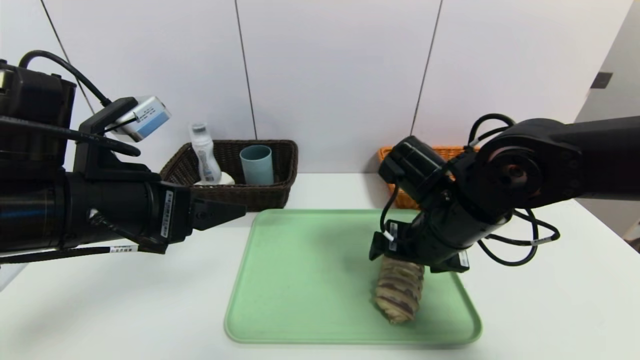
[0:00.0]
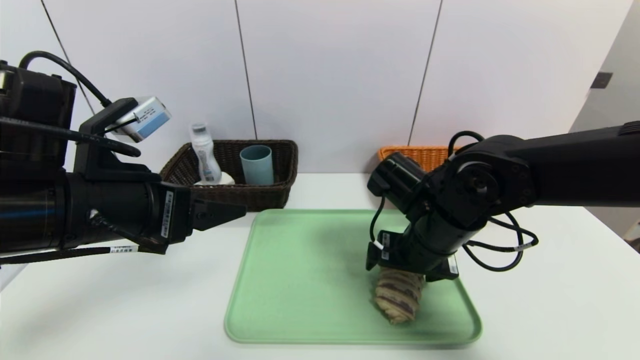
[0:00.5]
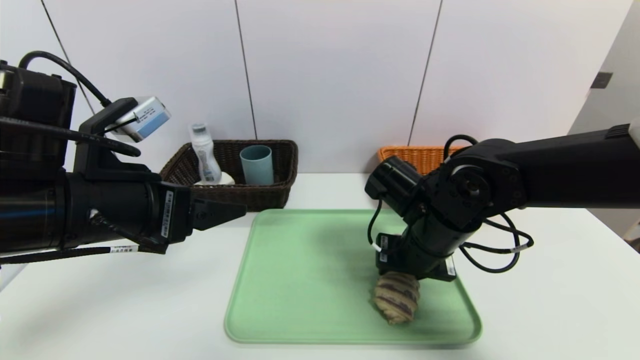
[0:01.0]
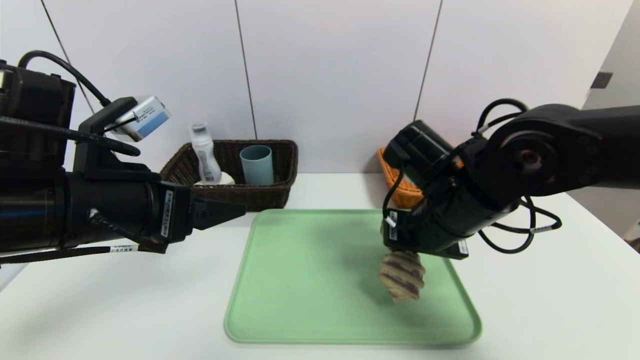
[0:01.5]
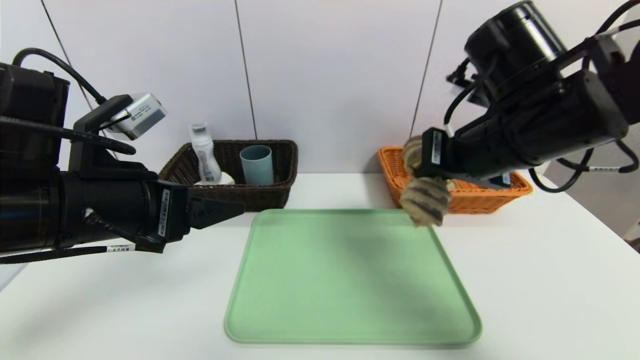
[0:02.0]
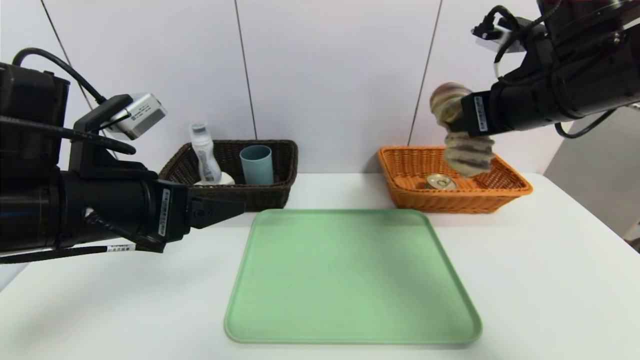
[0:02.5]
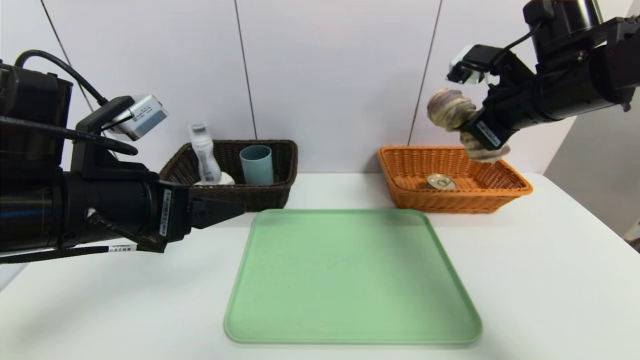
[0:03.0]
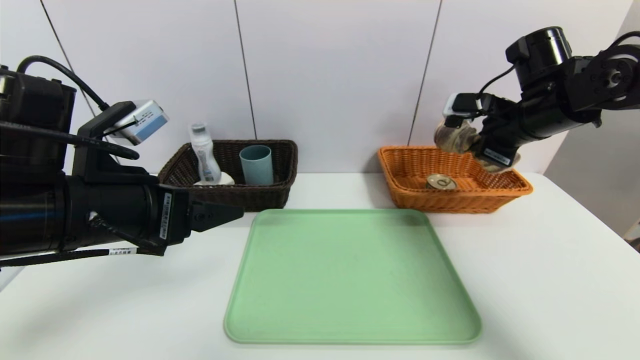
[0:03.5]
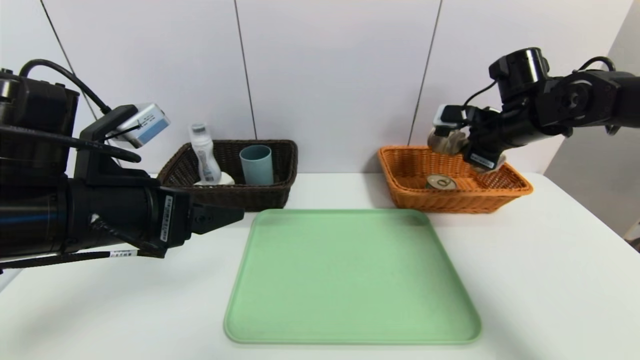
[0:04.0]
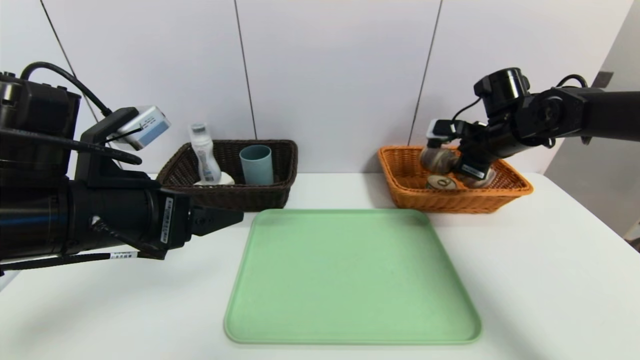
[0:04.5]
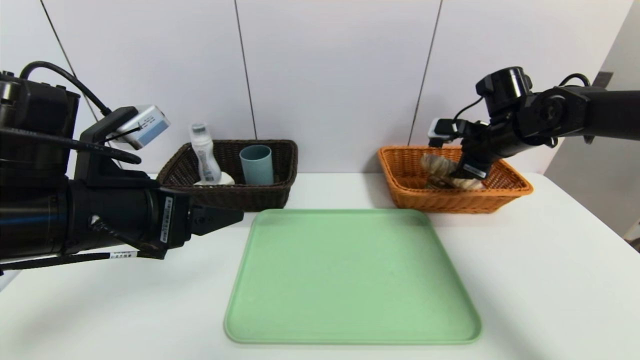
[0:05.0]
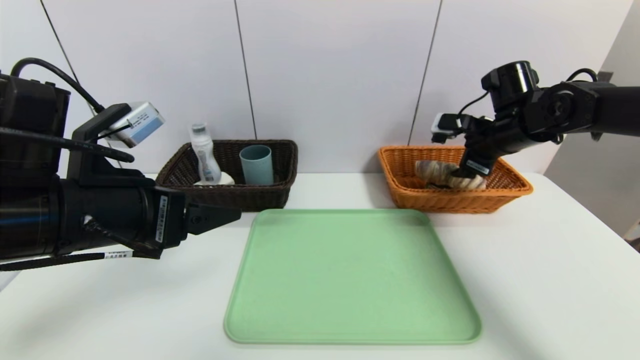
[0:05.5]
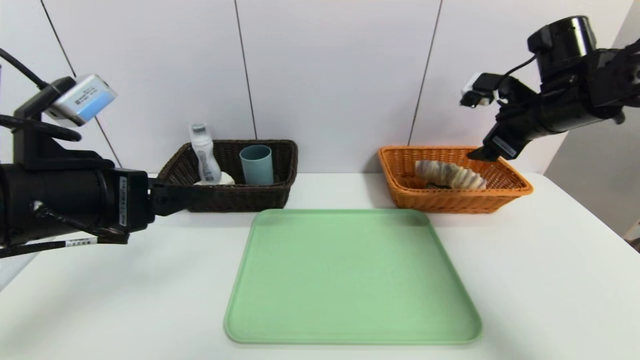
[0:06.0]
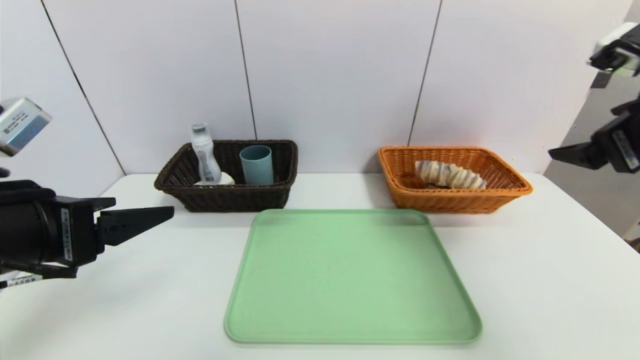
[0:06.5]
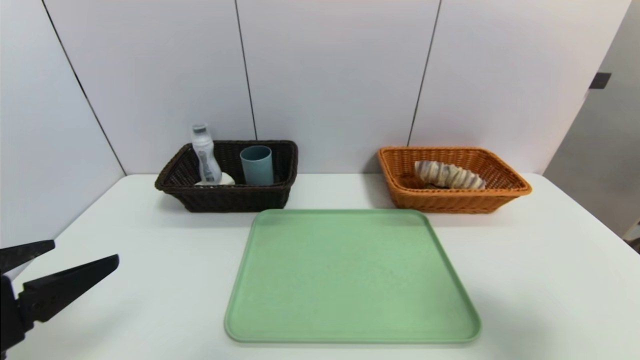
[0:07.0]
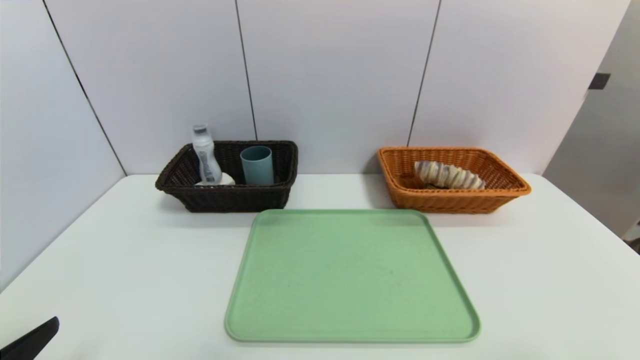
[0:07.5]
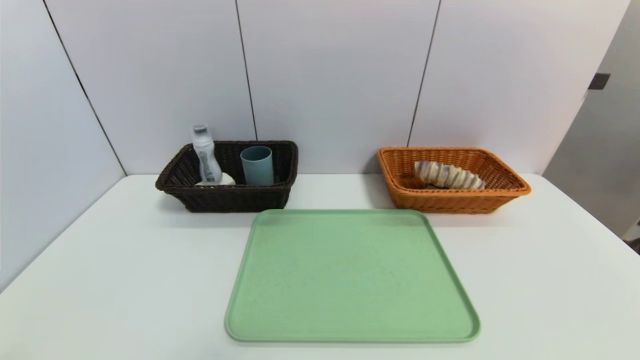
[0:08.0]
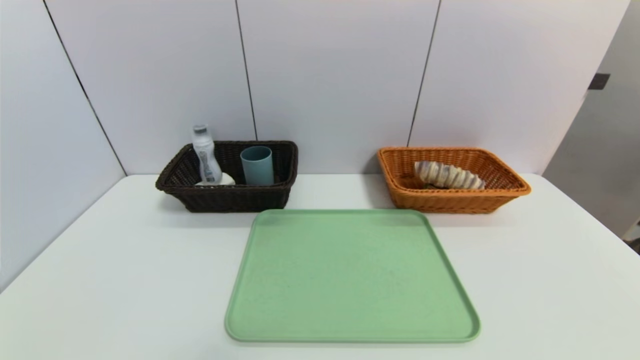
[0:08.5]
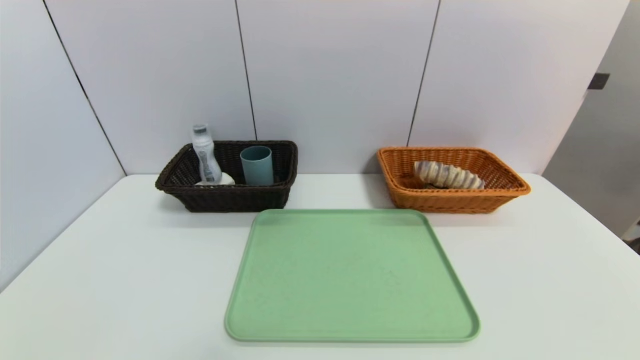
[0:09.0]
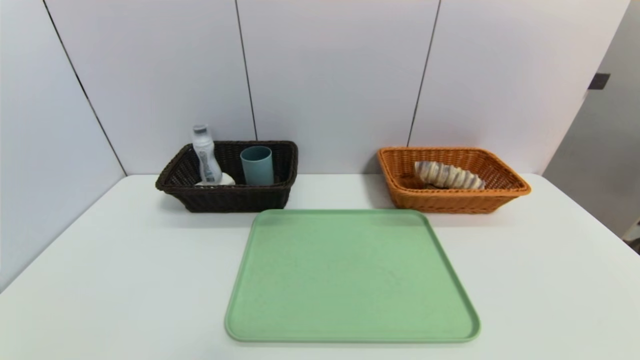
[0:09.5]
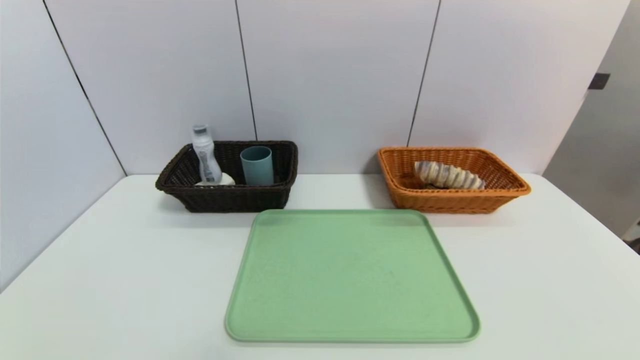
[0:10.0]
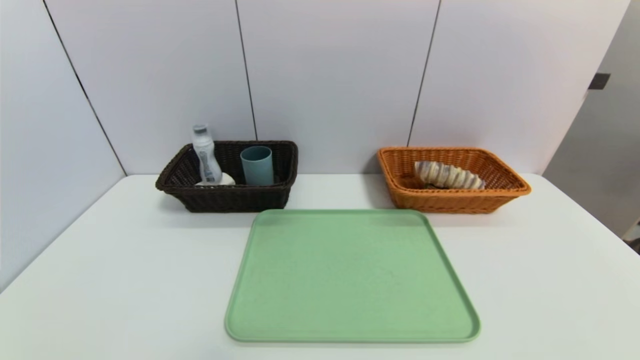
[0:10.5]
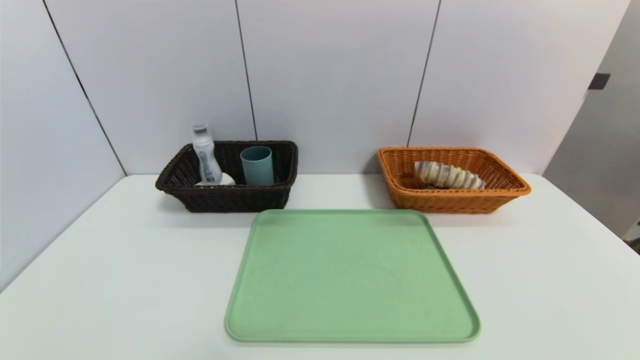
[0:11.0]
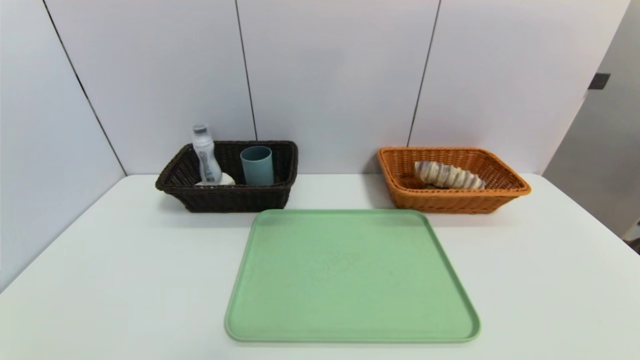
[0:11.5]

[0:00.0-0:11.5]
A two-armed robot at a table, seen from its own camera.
Task of the whole recording: place the food in the right basket with the right gripper, and place the non food items in the left basket with the left gripper.
Step, 0:00.0 to 0:05.5: Grasp the long bread and put it in the right basket.
0:00.0 to 0:02.0: The right gripper travels upward by roughly 10 cm, and closes its fingers.
0:02.0 to 0:04.0: The right gripper goes about 20 cm forward and to the right.
0:04.0 to 0:06.0: The right gripper is displaced backward and upward by some 10 cm, and opens.
0:06.0 to 0:07.5: The left gripper moves backward, downward and to the left, some 20 cm; the right gripper travels backward by approximately 35 cm.

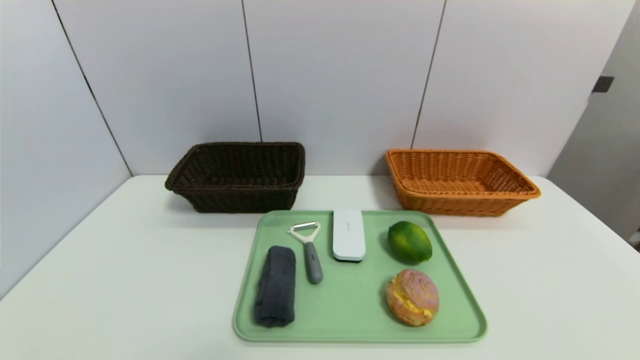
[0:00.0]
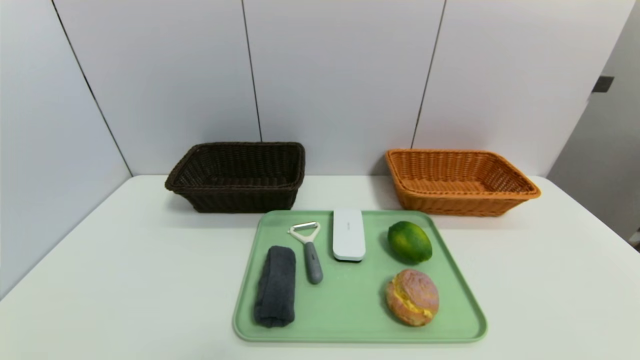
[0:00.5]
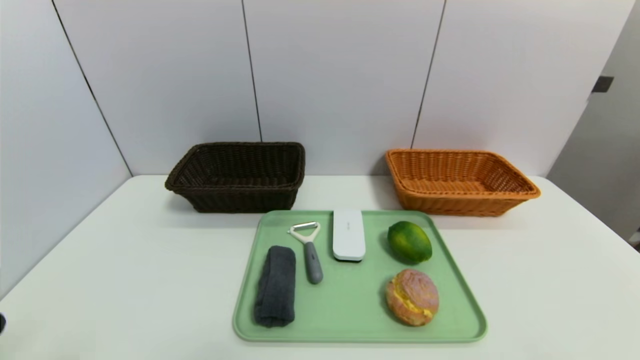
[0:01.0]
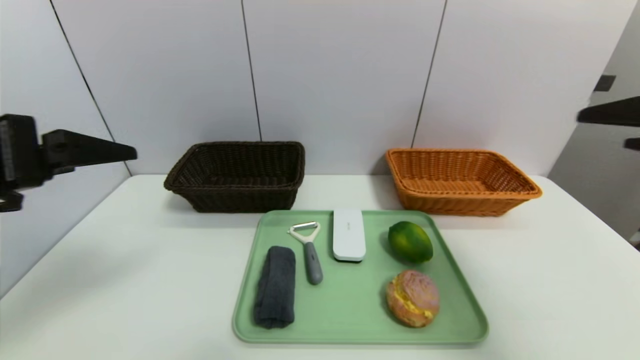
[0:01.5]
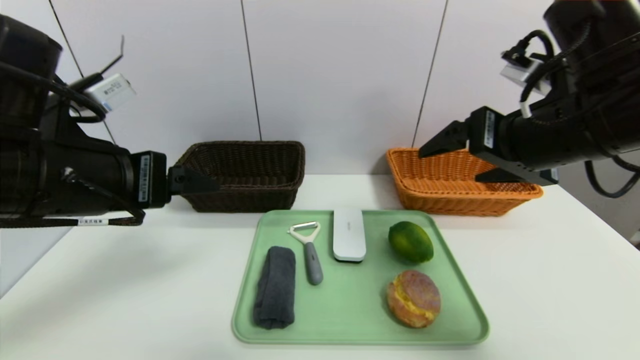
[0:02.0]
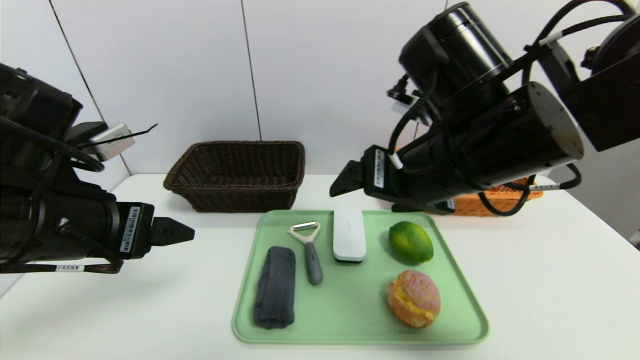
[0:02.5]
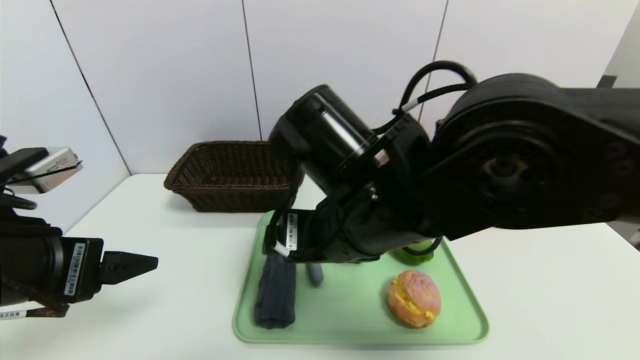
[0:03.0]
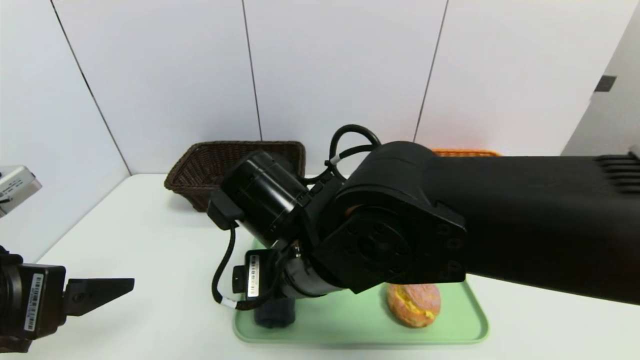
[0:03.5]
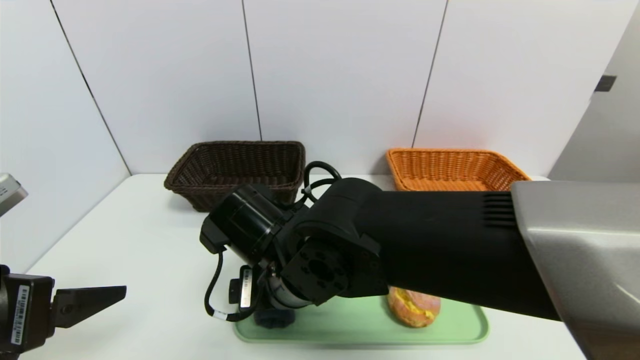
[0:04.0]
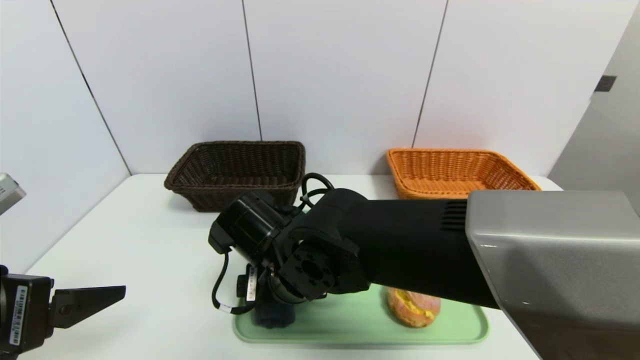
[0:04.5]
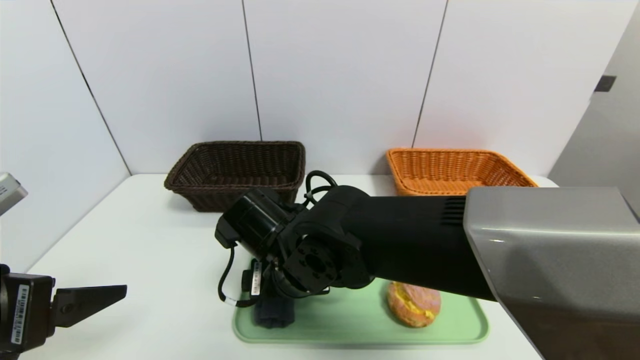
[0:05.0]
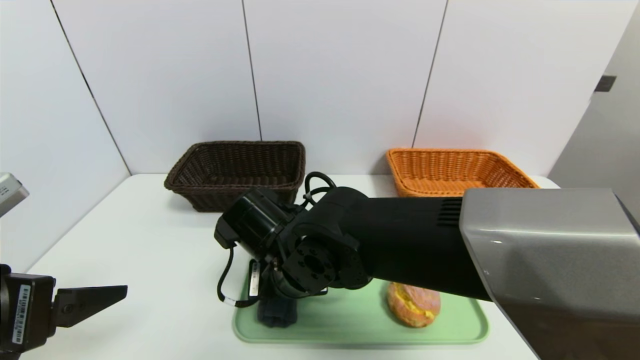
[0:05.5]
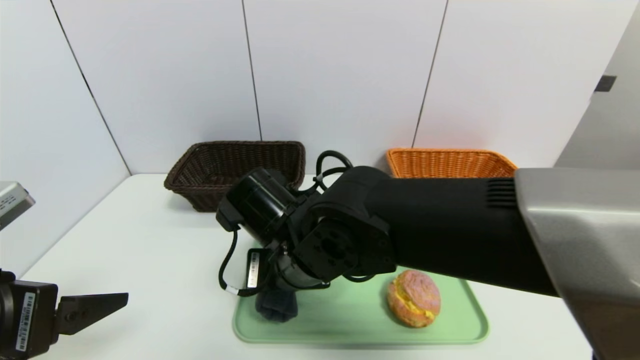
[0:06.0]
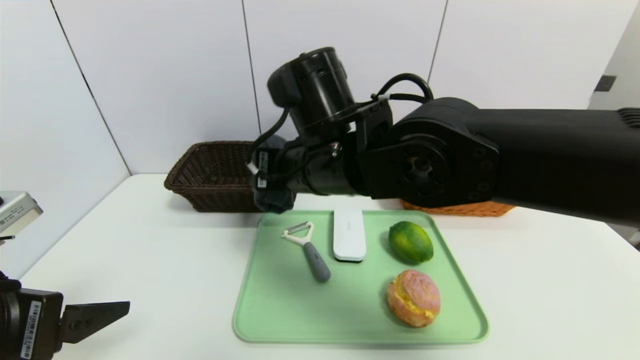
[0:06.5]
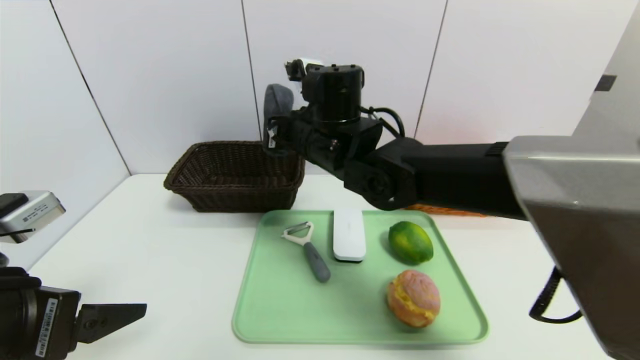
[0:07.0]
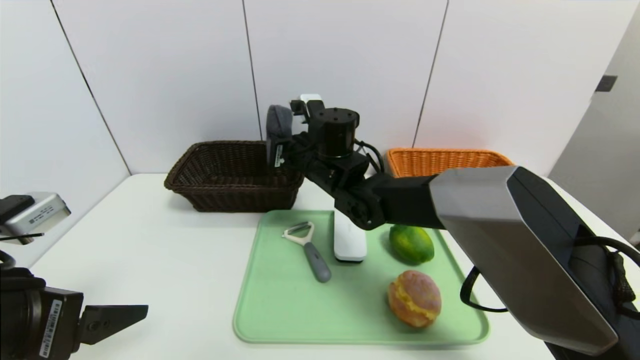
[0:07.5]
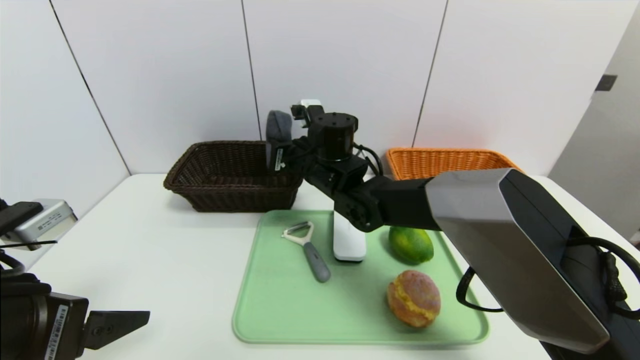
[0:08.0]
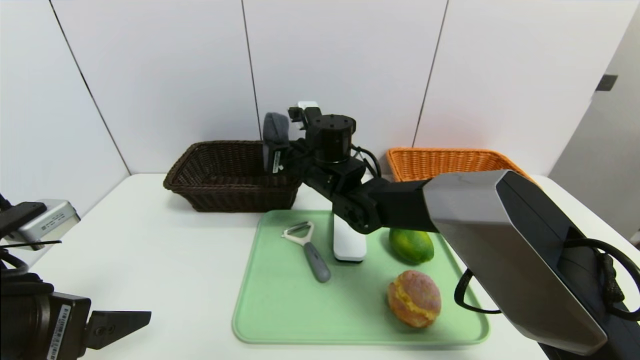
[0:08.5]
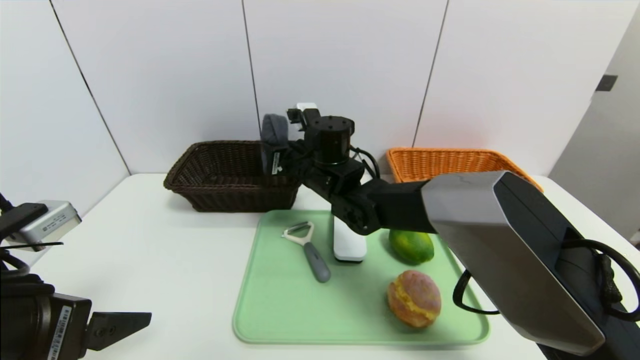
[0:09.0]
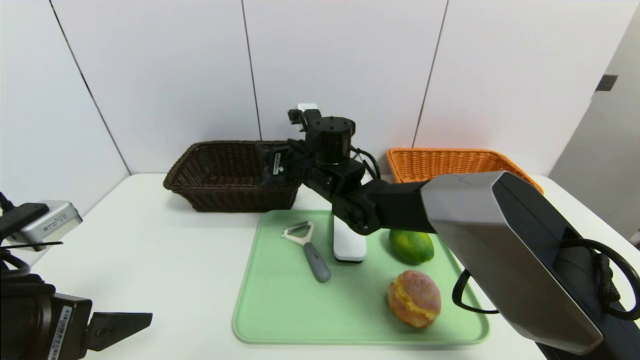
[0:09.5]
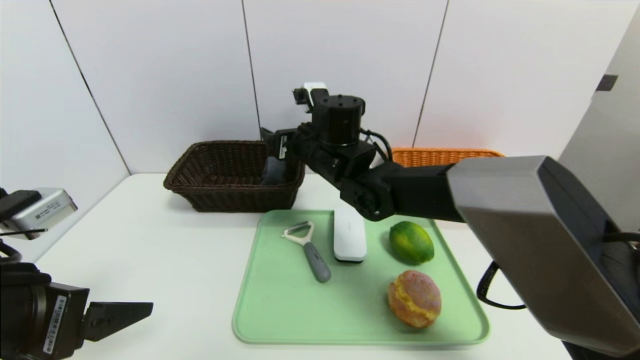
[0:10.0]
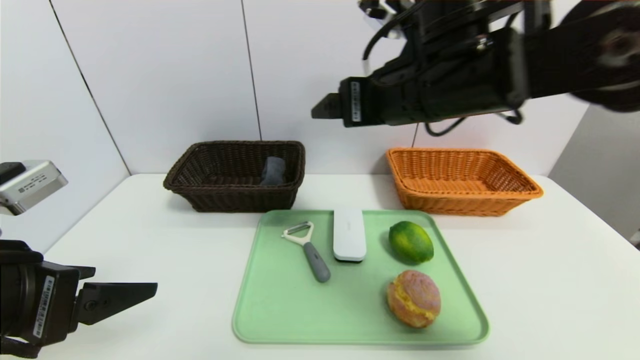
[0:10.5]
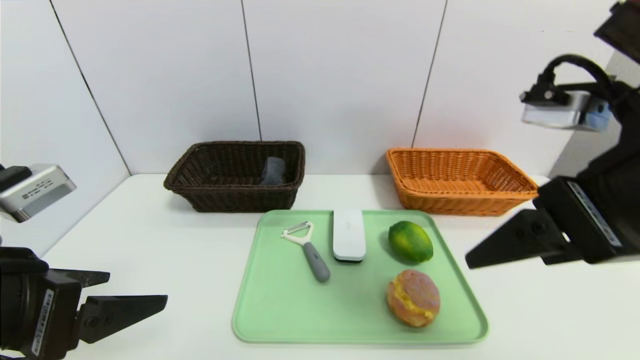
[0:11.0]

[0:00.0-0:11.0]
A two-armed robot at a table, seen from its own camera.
Task of the whole recording: place the food in the right basket with the right gripper, and place the non food items in the left basket with the left gripper.
Step, 0:00.0 to 0:09.5: Grasp the grey towel and put it in the left basket.
0:00.0 to 0:02.0: The left gripper shifts roughly 30 cm upward, forward and to the right. The right gripper heads forward, upward and to the left, covering approximately 35 cm.
0:02.0 to 0:03.5: The right gripper heads to the left and downward, covering some 25 cm. The left gripper is displaced backward by about 10 cm.
0:03.5 to 0:05.5: The right gripper heads downward, covering approximately 5 cm, and closes.
0:05.5 to 0:07.5: The right gripper is displaced forward by some 15 cm.
0:07.5 to 0:09.0: Both grippers stay put.
0:09.0 to 0:11.0: The right gripper moves backward, to the right and upward, some 35 cm, and opens.
